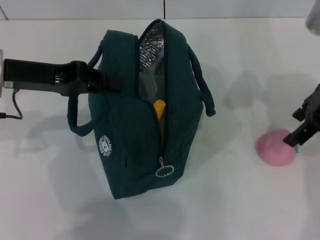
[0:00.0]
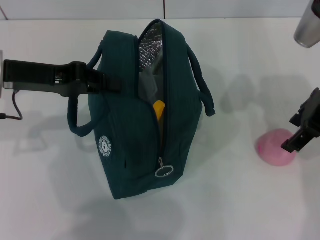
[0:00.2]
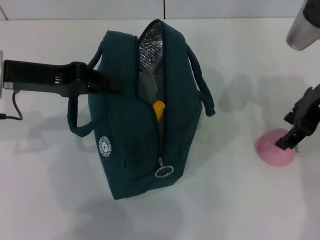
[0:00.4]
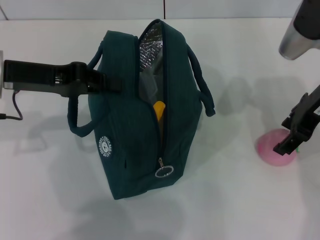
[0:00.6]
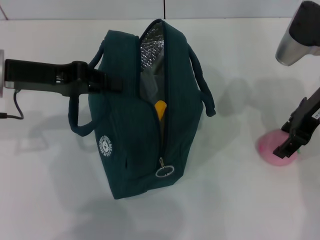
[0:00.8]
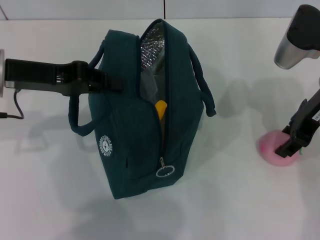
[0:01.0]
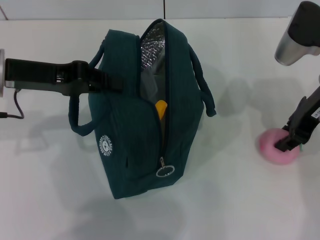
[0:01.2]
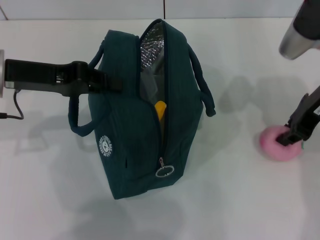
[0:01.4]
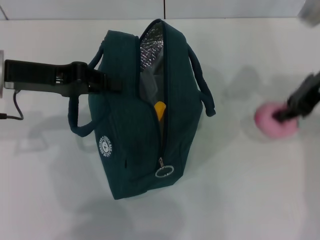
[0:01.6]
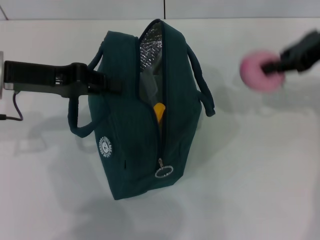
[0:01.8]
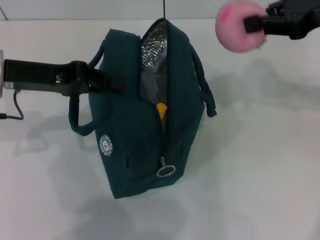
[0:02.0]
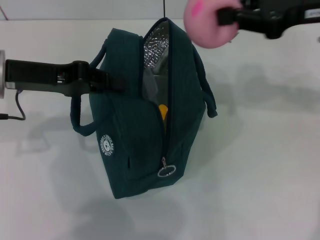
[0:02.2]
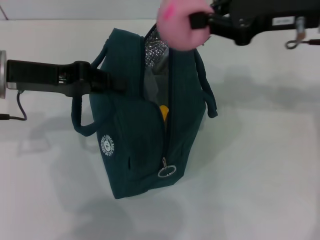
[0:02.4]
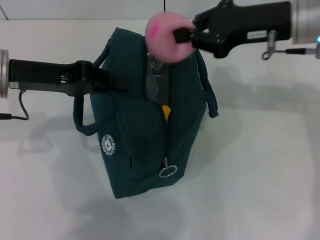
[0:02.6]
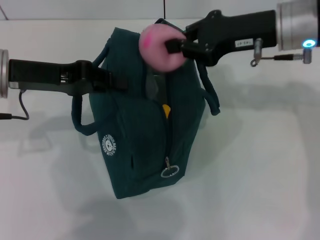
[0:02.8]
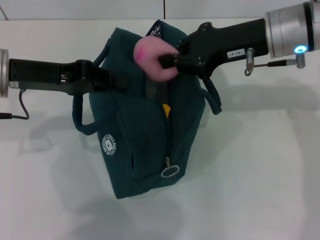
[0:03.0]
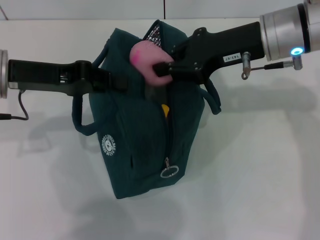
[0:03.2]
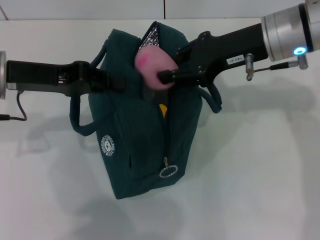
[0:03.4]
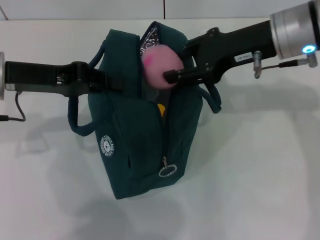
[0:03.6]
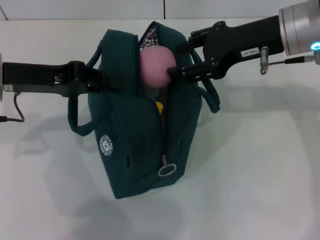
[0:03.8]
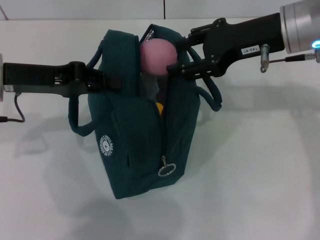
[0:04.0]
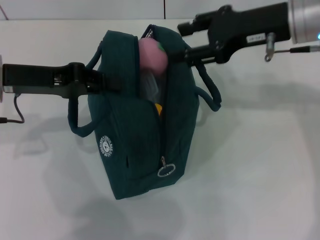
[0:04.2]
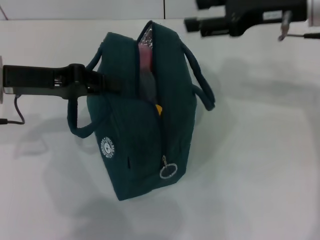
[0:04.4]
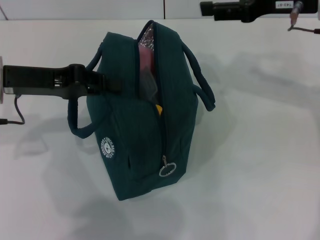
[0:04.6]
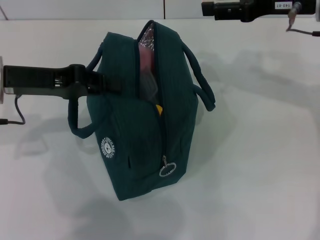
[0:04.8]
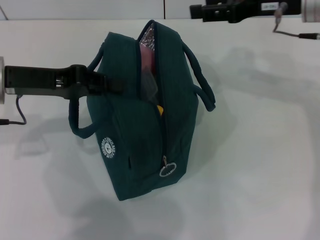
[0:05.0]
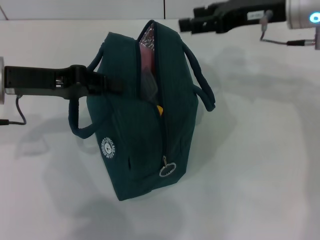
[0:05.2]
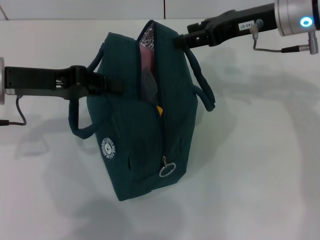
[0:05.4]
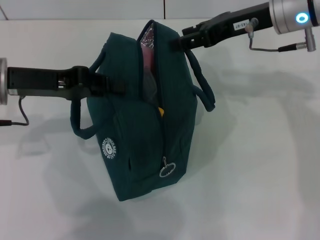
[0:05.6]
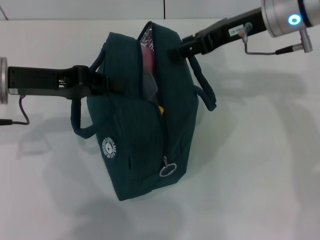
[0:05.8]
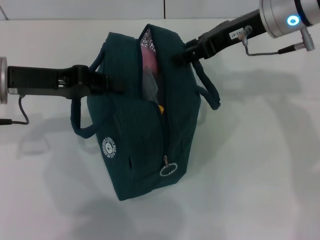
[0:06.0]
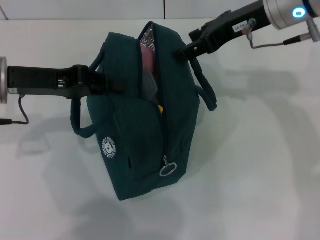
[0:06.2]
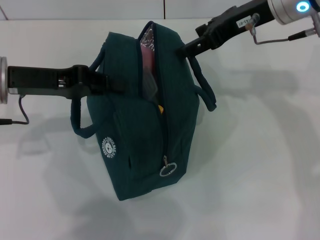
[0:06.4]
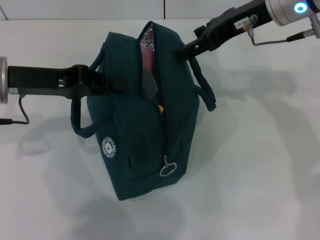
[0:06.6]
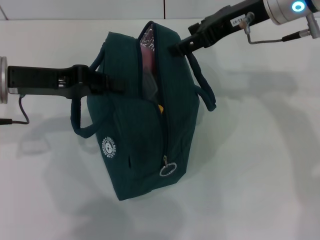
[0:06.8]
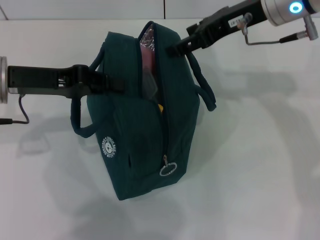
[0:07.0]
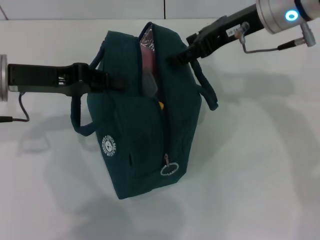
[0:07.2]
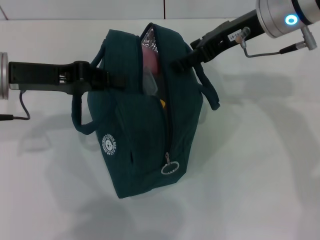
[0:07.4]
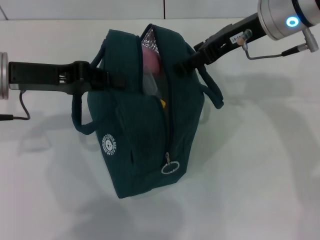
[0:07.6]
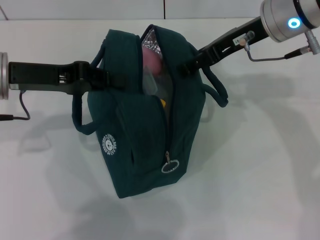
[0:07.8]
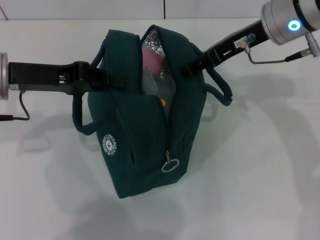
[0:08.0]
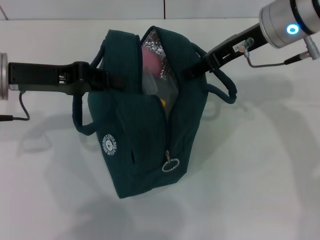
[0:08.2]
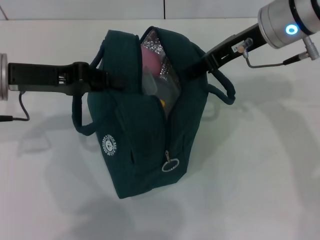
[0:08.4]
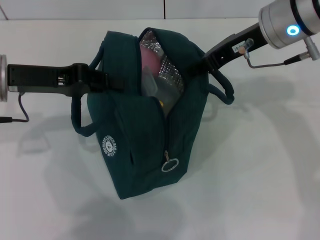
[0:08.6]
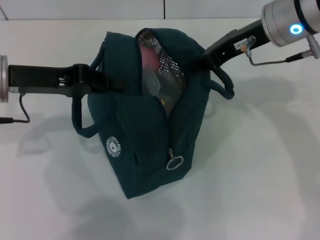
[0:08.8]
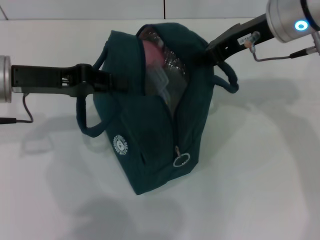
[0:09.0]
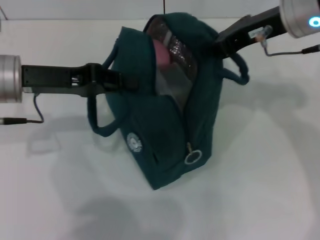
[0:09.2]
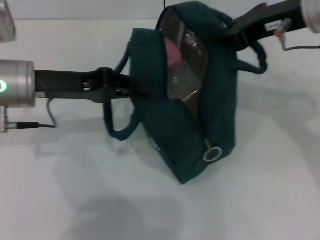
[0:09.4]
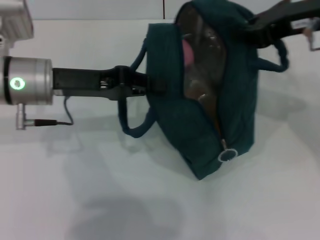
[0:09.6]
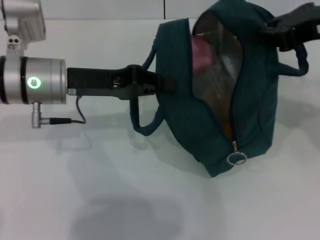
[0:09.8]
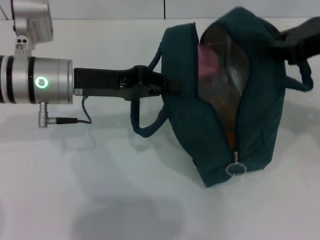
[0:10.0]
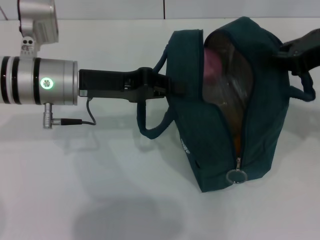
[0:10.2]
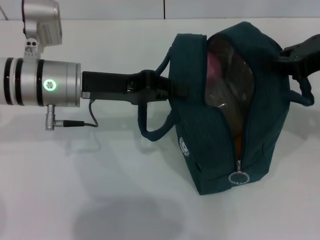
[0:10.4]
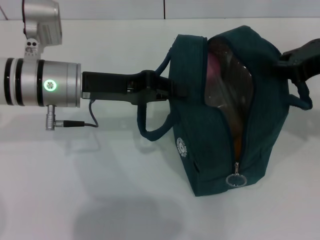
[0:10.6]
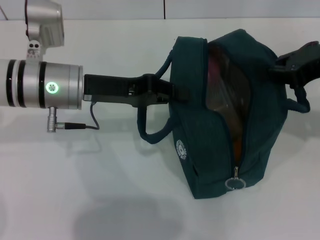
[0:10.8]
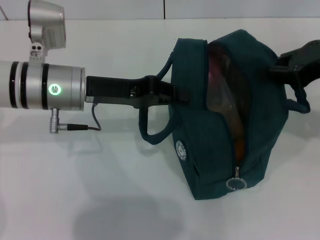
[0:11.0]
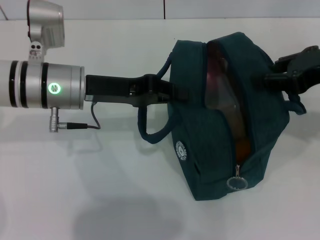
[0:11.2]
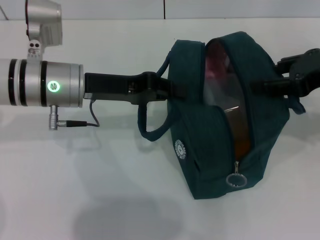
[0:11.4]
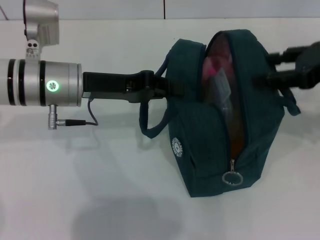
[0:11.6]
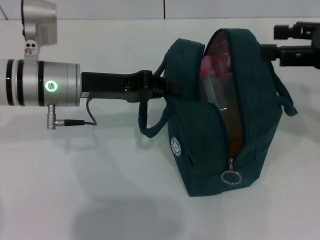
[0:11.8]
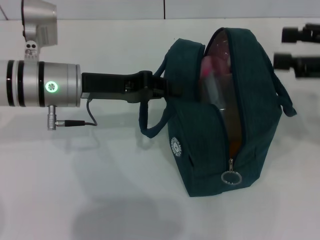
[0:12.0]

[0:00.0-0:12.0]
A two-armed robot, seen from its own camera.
Step, 0:05.0 to 0:11.8: Hold the lunch bag with your right hand.
0:00.0 to 0:01.6: The right gripper closes.
0:01.6 to 0:03.0: The right gripper goes some 10 cm to the left.
0:03.0 to 0:04.4: The right gripper changes place by roughly 5 cm, and opens.
0:04.4 to 0:06.0: The right gripper moves approximately 5 cm.
0:06.0 to 0:07.6: The grippers make only small movements.
0:07.6 to 0:09.0: The right gripper closes up.
0:09.0 to 0:10.4: The left gripper shifts approximately 10 cm to the right. Meanwhile the right gripper is displaced to the right and backward by approximately 10 cm.
0:10.4 to 0:12.0: The right gripper goes some 5 cm to the right, and opens up.

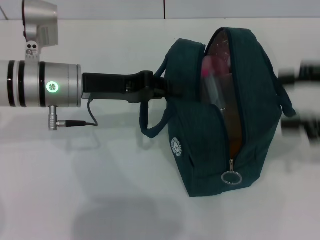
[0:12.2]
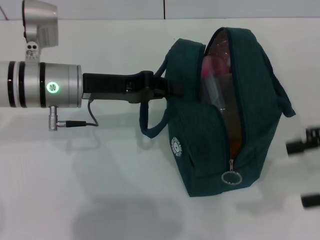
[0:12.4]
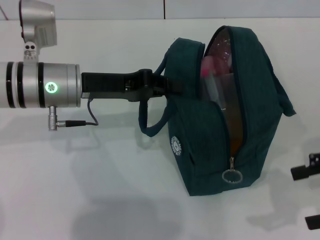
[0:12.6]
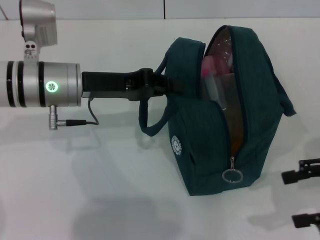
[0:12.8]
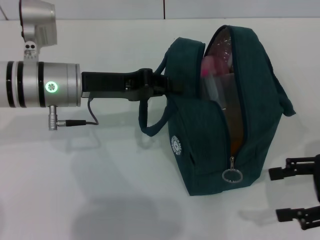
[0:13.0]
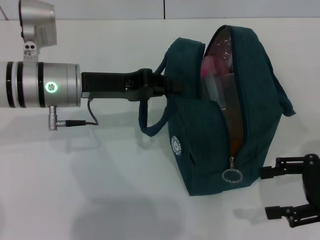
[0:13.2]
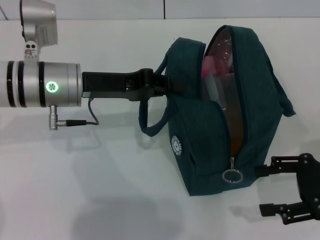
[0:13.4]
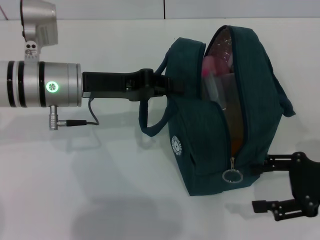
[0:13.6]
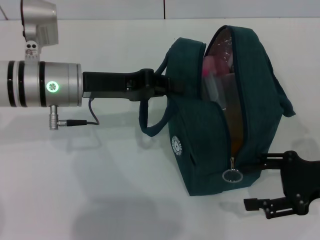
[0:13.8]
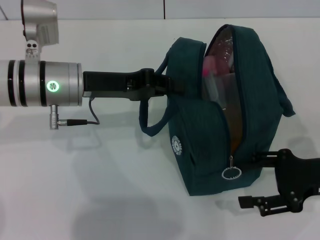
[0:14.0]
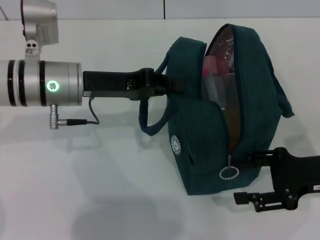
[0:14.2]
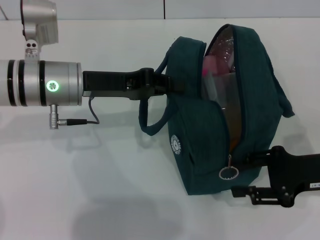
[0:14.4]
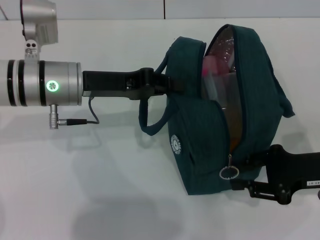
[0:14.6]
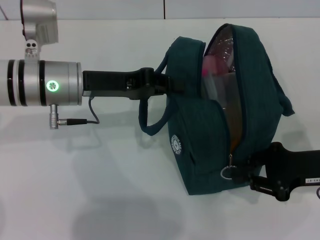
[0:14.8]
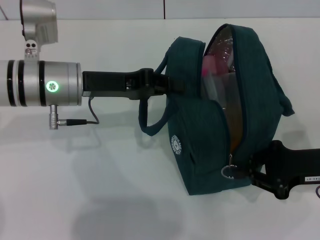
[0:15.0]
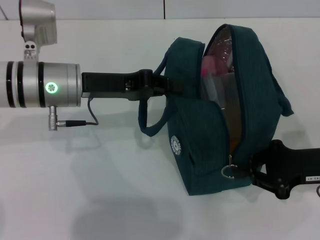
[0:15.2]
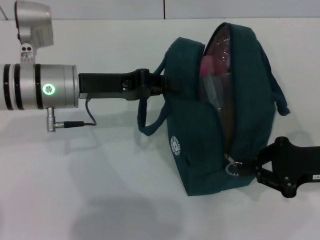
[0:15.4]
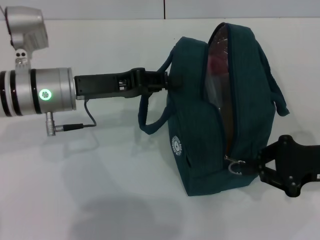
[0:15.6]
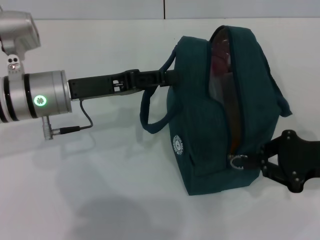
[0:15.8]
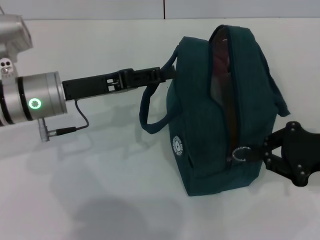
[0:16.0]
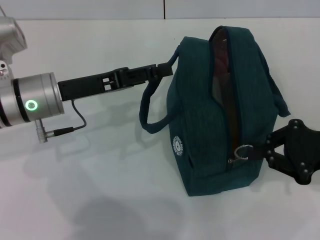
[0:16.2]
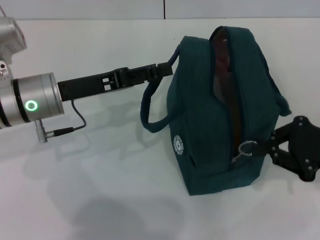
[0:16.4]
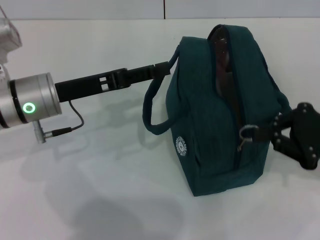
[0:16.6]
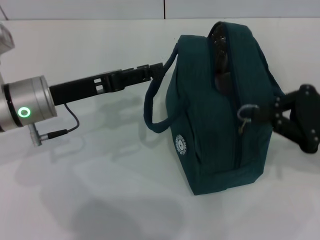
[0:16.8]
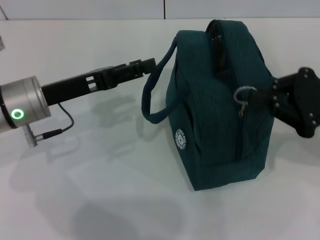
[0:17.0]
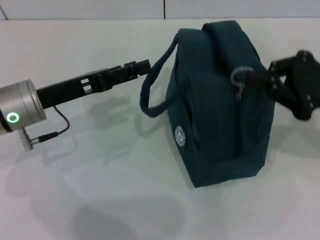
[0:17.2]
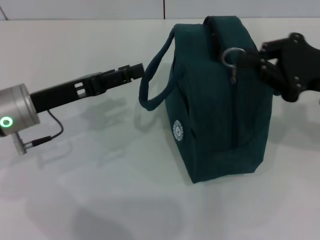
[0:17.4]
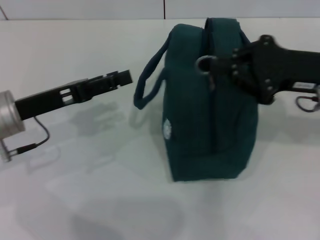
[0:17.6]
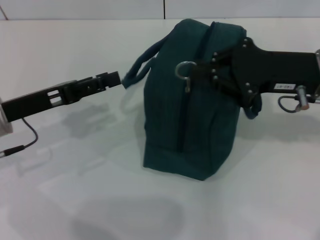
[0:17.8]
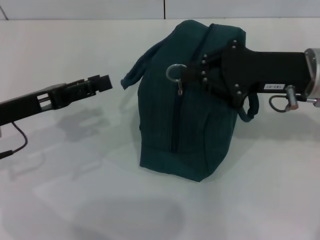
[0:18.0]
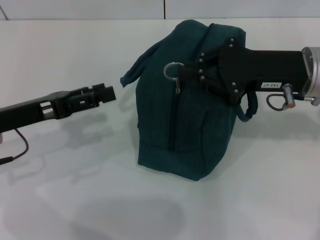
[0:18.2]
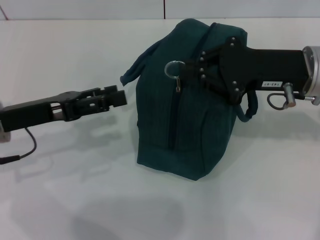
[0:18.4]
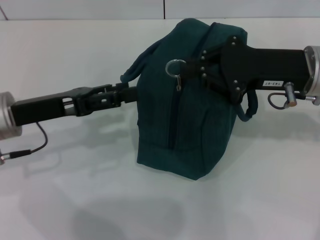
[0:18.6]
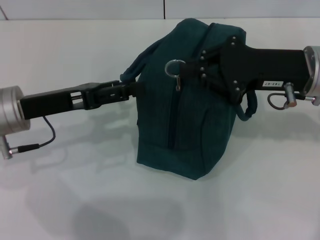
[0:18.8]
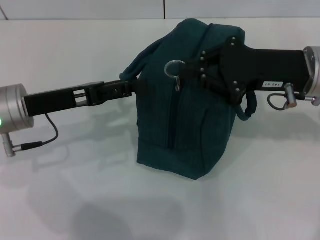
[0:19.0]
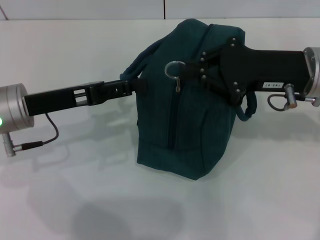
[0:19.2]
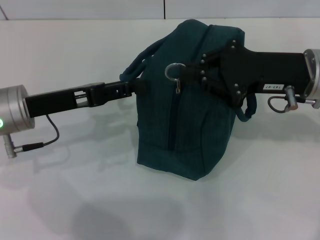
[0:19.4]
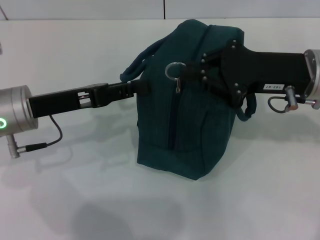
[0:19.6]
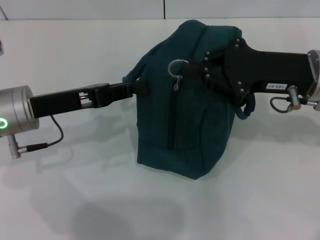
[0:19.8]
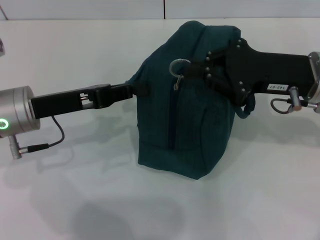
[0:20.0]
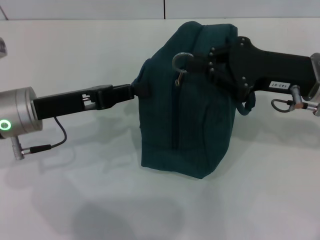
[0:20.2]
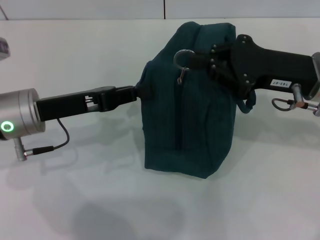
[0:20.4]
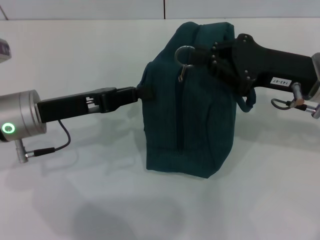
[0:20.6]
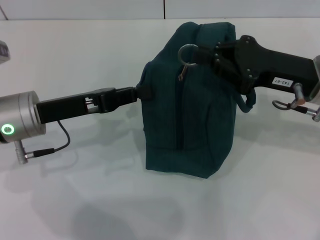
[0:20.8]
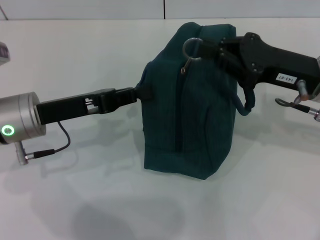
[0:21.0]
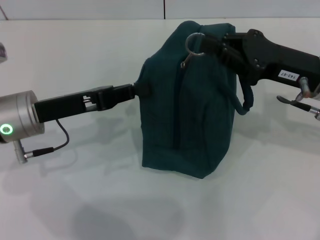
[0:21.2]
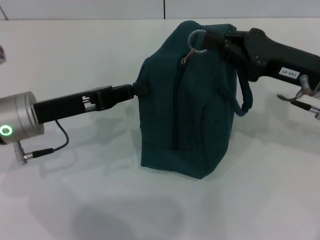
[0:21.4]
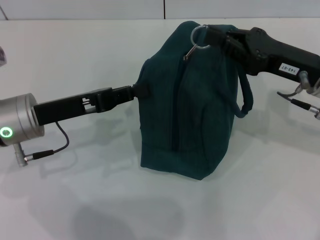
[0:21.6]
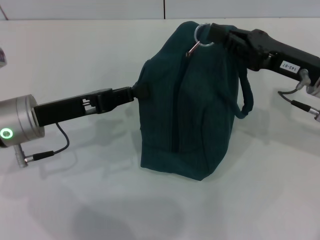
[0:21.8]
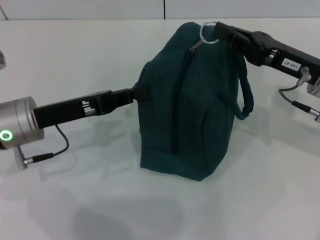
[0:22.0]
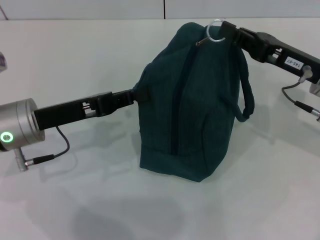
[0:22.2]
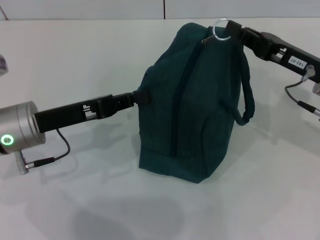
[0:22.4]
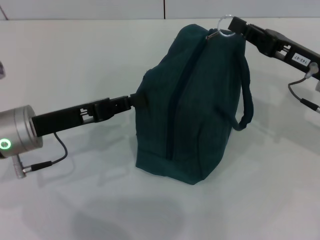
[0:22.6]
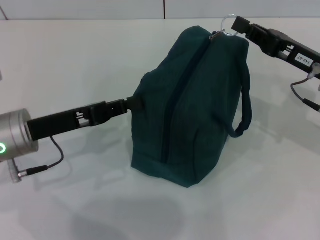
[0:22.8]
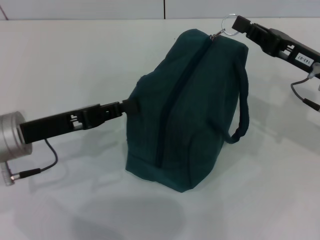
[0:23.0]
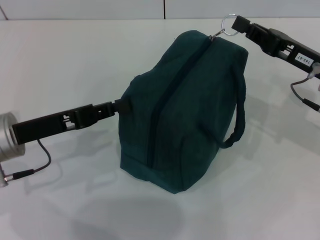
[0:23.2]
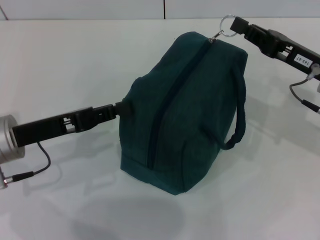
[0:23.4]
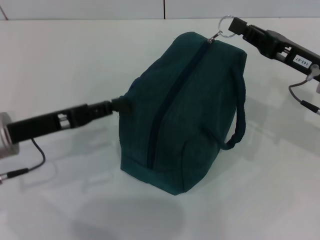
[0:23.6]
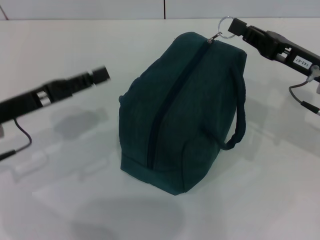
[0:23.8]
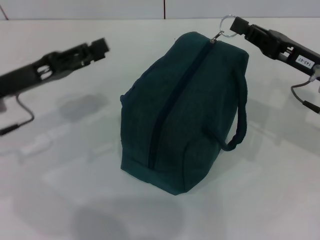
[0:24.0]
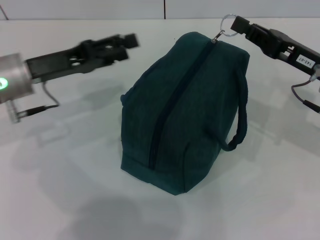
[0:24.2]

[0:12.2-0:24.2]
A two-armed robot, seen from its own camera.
0:12.2 to 0:13.8: The right gripper heads downward, covering about 15 cm.
0:13.8 to 0:15.2: The right gripper closes its fingers.
0:15.2 to 0:16.6: The left gripper opens its fingers. The right gripper moves some 5 cm.
0:16.6 to 0:18.2: The left gripper travels to the left by roughly 5 cm, while the right gripper shifts some 10 cm to the left and forward.
0:18.2 to 0:19.8: The left gripper moves approximately 5 cm, and closes its fingers.
0:19.8 to 0:21.2: The grippers move only a little.
0:22.6 to 0:24.2: The left gripper is displaced forward by roughly 5 cm, and opens.
